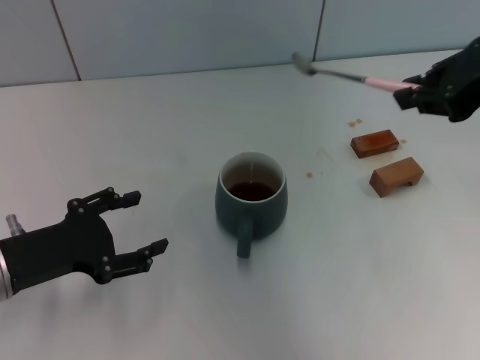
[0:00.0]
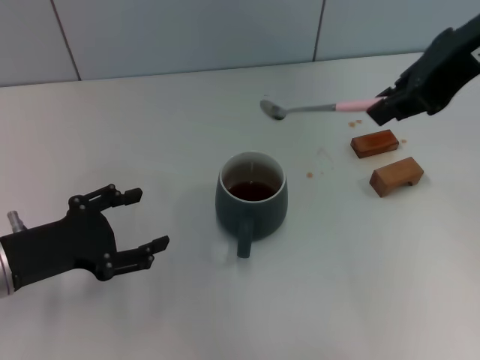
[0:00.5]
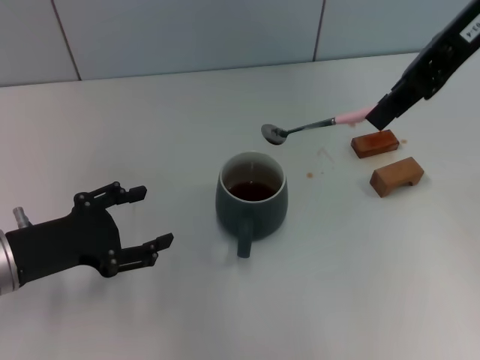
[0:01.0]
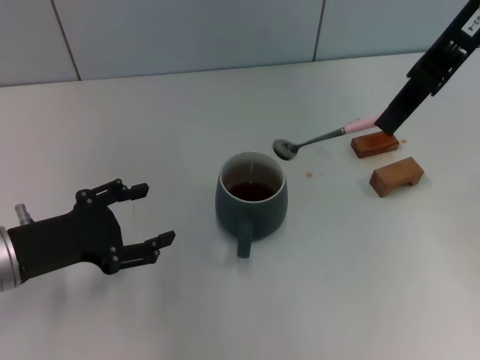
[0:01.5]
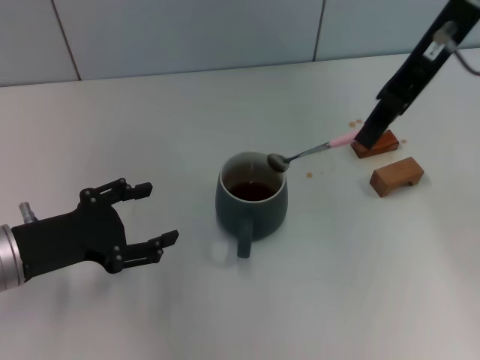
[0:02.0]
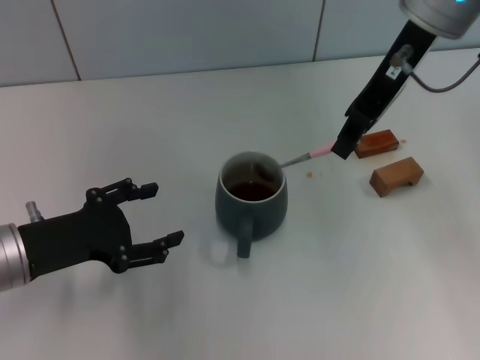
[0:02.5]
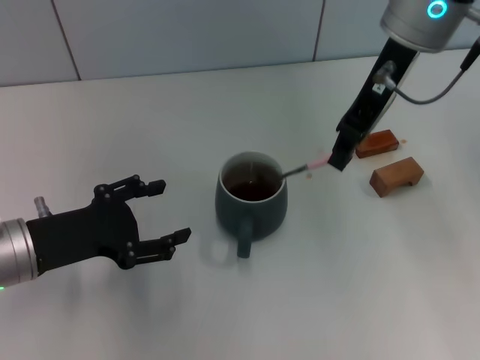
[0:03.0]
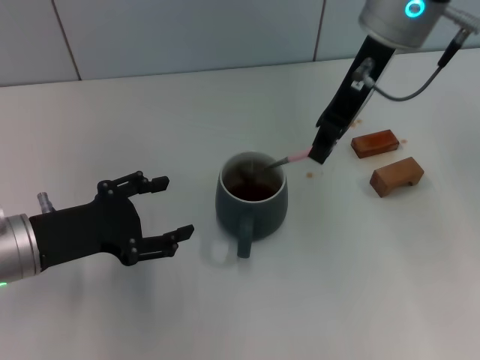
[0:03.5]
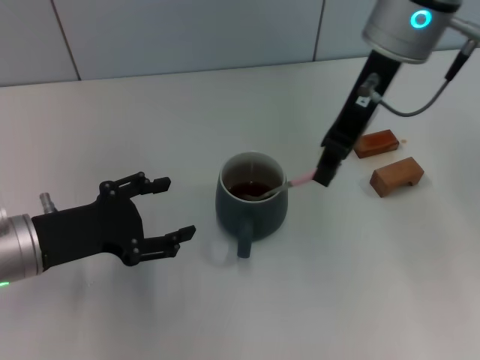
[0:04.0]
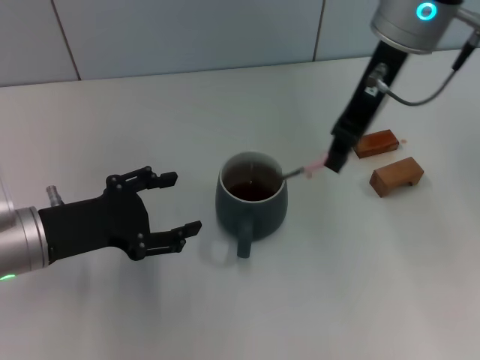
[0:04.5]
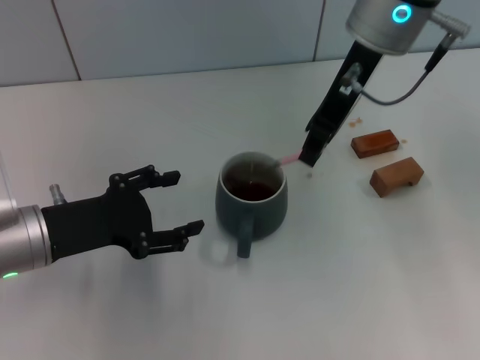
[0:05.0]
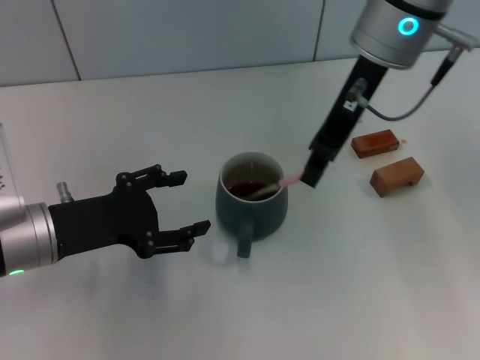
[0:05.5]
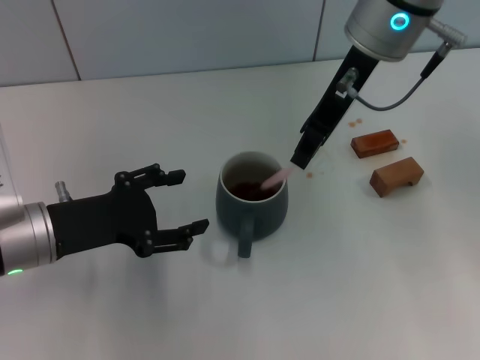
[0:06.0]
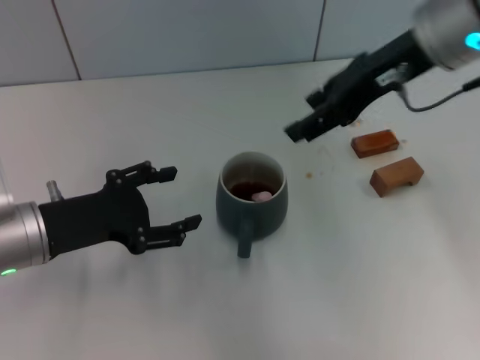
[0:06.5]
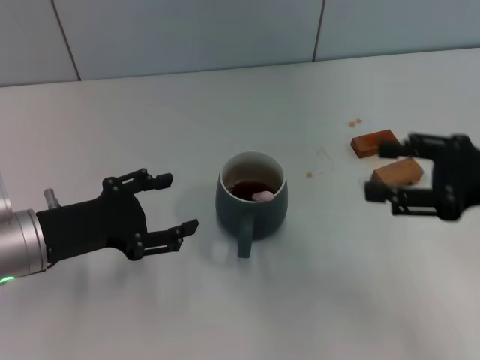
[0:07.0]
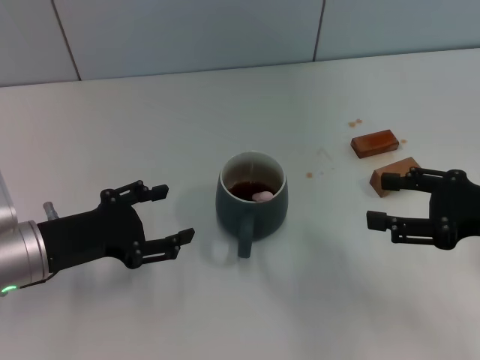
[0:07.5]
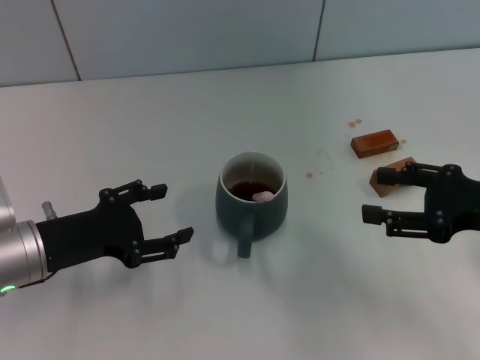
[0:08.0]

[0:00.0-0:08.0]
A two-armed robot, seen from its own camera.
Task of the whole recording: Move the grey cup to the center, lift the pink spoon, stir it three times in the cup, and put the spoon into the cup.
Step, 0:00.0 to 0:04.0: Stir the coffee in the cup with the right gripper.
0:00.0 to 0:02.0: The right gripper travels forward and to the left by approximately 10 cm.
0:02.0 to 0:04.0: The right gripper moves to the left, some 5 cm.
0:04.0 to 0:06.0: The grippers move only a little.
0:06.0 to 0:08.0: The right gripper goes roughly 30 cm to the right, backward and downward, and opens its fingers.
